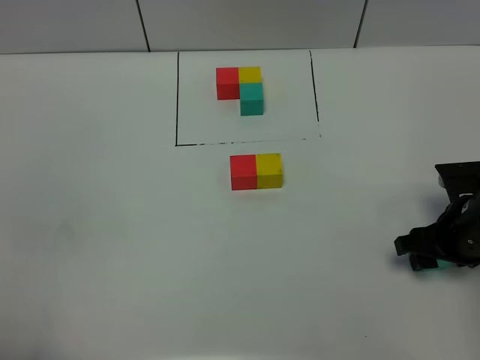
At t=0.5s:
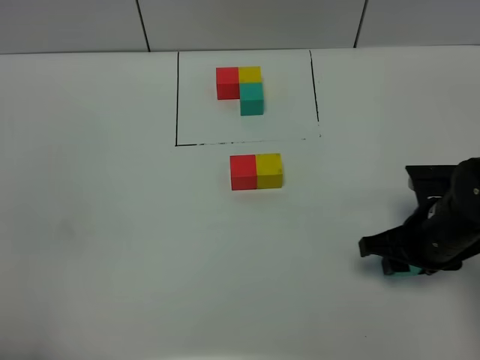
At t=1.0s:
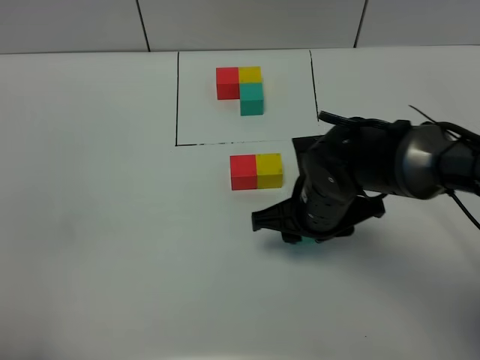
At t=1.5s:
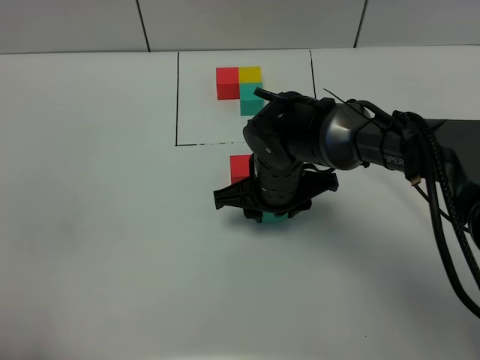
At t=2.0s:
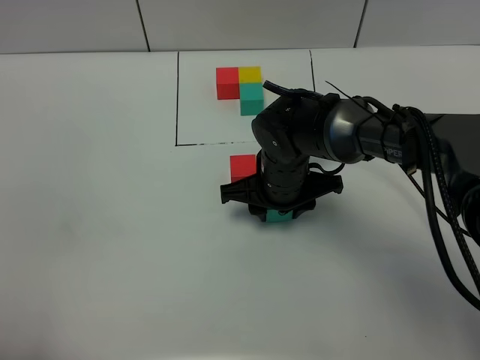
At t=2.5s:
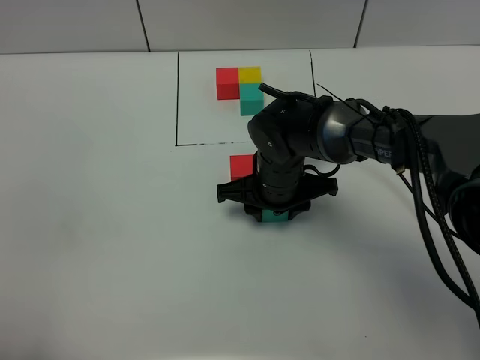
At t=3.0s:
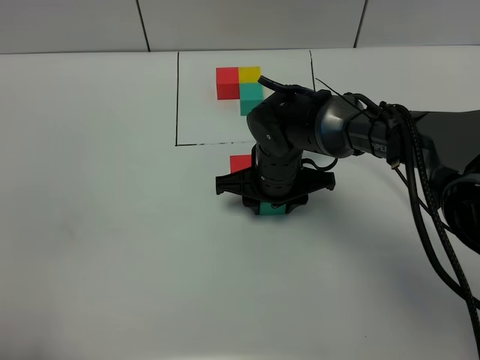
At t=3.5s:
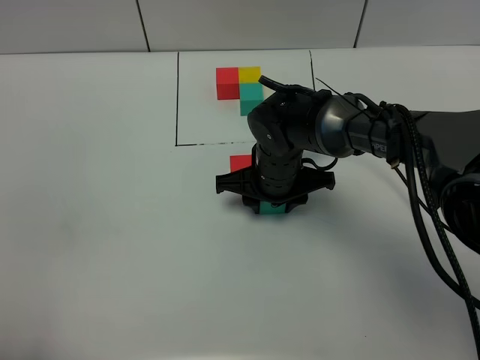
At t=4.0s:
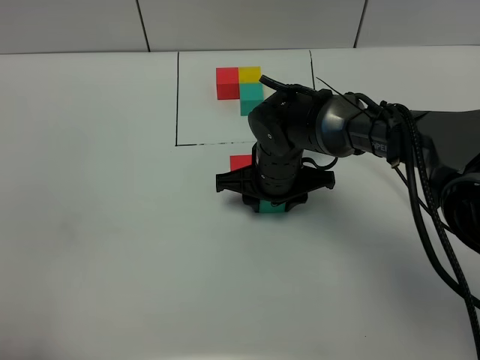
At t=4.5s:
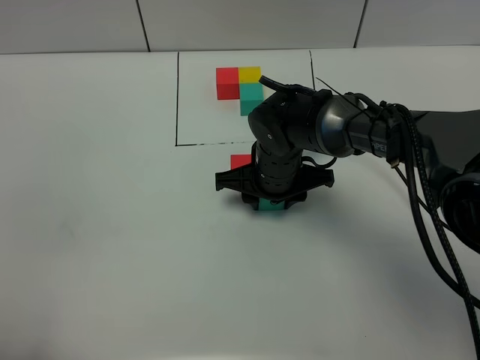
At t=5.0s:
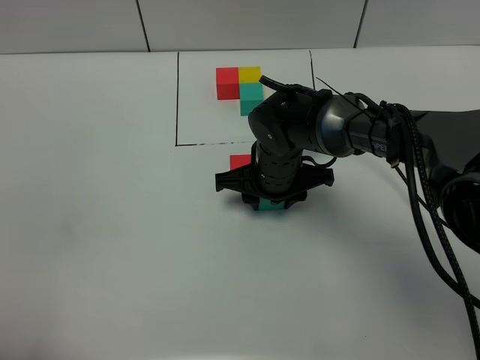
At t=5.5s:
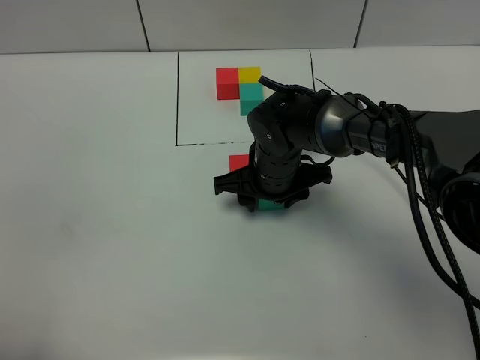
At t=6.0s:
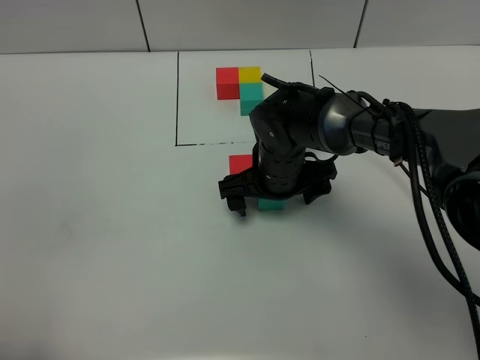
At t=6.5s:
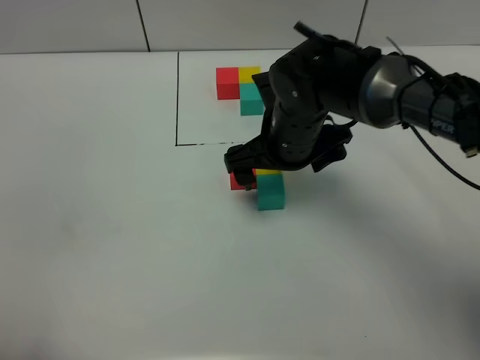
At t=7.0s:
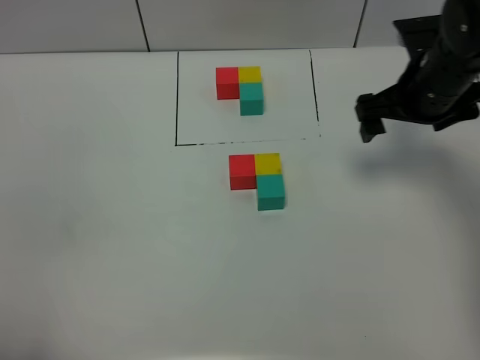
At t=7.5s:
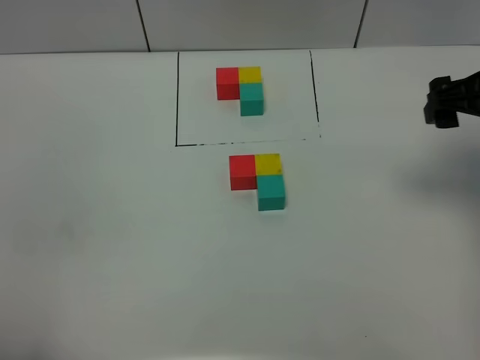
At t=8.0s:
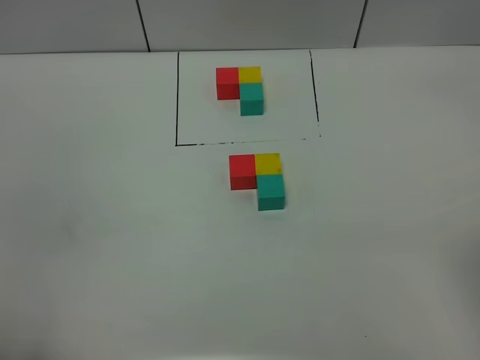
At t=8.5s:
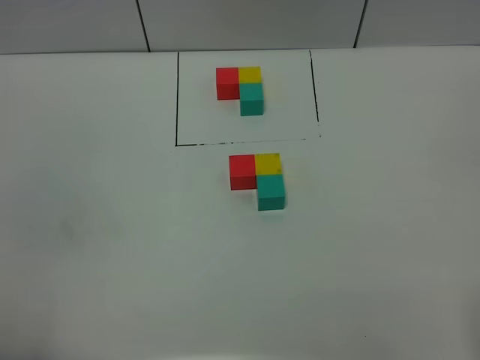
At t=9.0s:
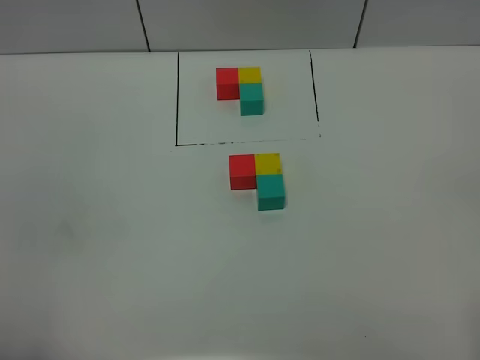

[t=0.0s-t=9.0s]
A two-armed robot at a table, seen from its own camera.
Task of the whole recording: According to the building block template in front, assemble the scattered blocks together.
Step, t=0.0s to t=5.5s: Put the green build block on the behind of the yellow build block.
t=0.0s to t=2.0s: The right gripper moves to the left, some 25 cm.
t=2.0s to t=4.5s: The grippers make only small movements.
t=4.5s to t=7.0s: The right gripper heads to the right and upward, covering about 20 cm, and opens its fingers.
t=7.0s to t=9.0s: The right gripper heads backward, covering about 40 cm.
